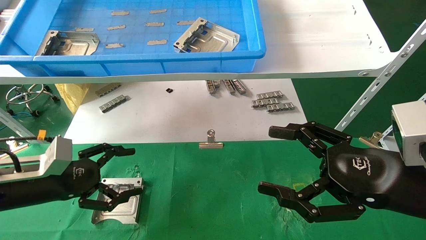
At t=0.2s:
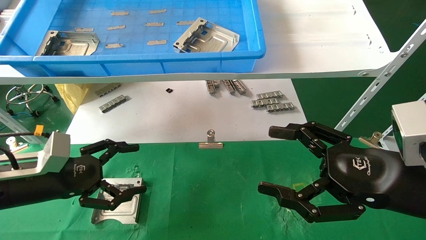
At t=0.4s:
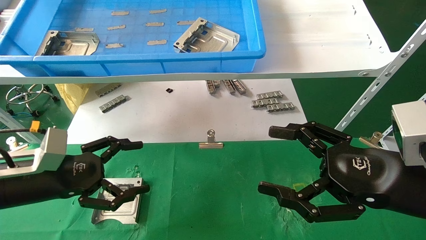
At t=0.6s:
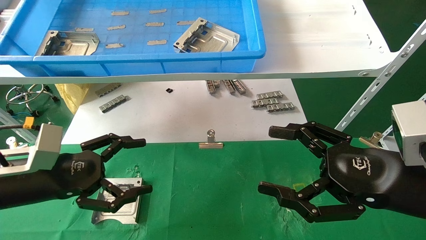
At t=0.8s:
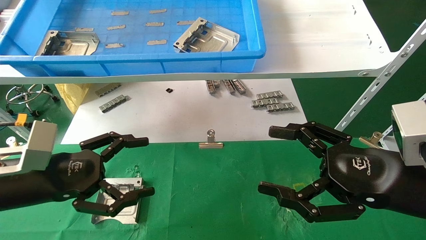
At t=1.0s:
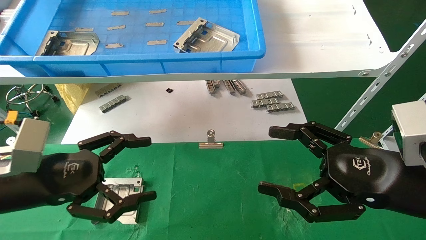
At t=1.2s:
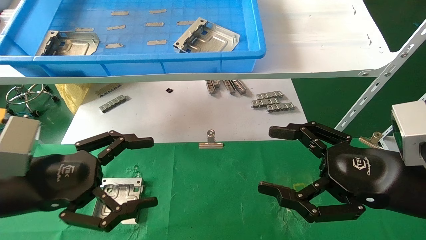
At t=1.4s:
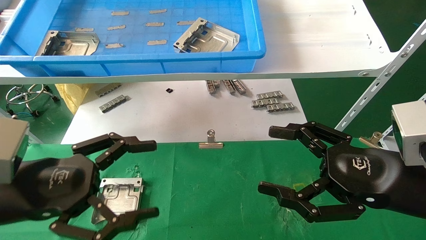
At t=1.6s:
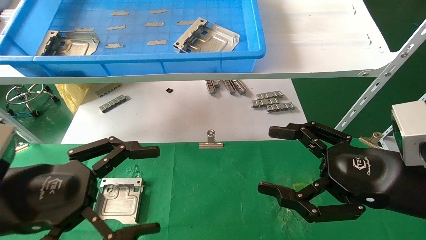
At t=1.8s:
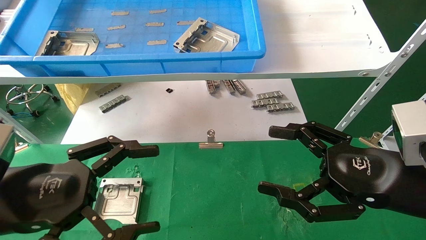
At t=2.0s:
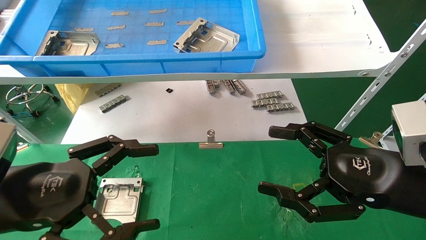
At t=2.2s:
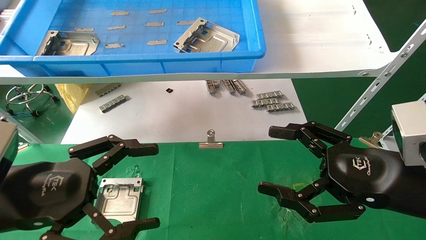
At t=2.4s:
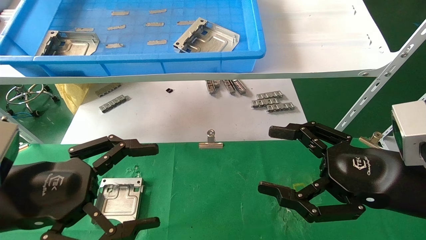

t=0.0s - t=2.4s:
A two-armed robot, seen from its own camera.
Task of the whole recording: use the mechanical arm to pick up the parts and place them on the table.
t=0.0s - t=1.2s: The left gripper is displaced backward, to the right and upward by roughly 10 cm.
t=1.2s - t=2.4s: The grippers move only a little.
